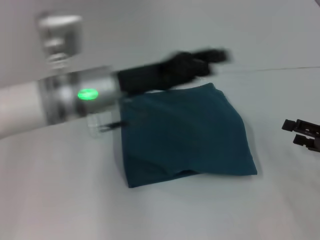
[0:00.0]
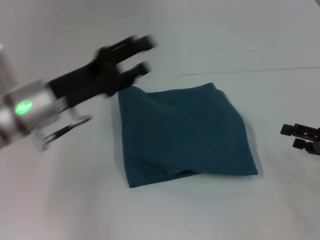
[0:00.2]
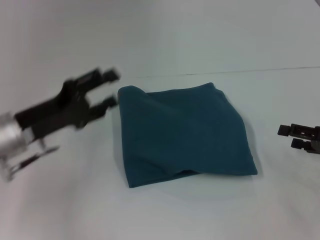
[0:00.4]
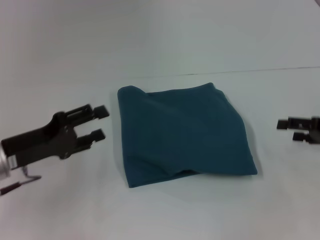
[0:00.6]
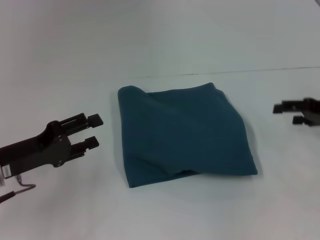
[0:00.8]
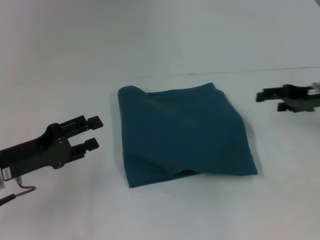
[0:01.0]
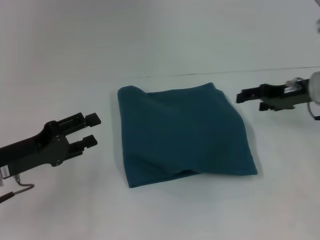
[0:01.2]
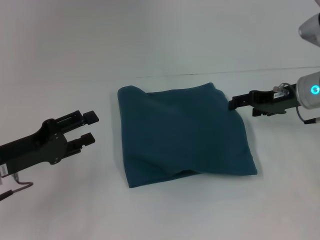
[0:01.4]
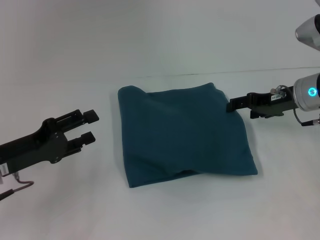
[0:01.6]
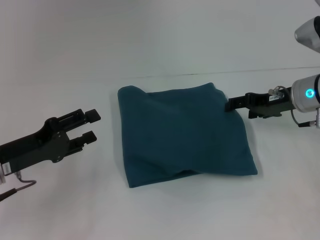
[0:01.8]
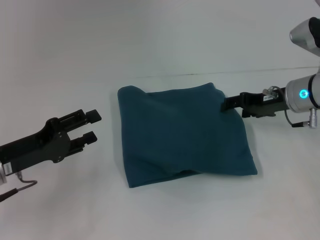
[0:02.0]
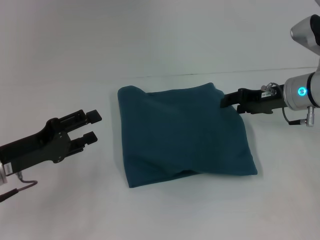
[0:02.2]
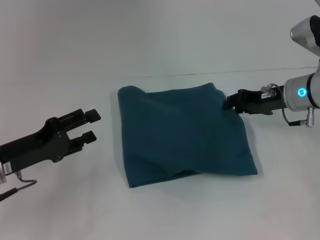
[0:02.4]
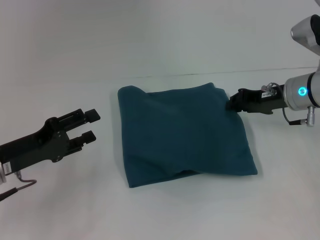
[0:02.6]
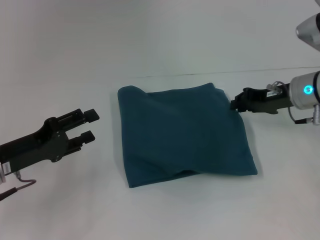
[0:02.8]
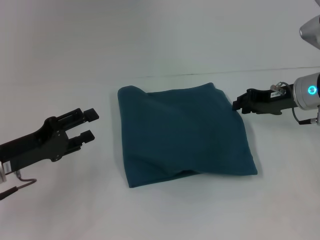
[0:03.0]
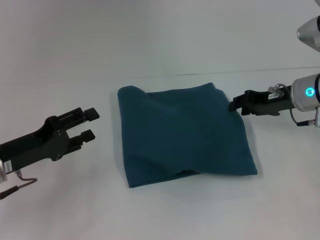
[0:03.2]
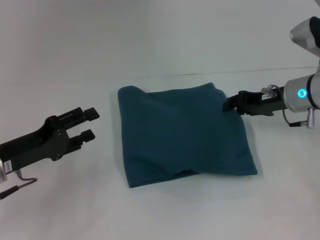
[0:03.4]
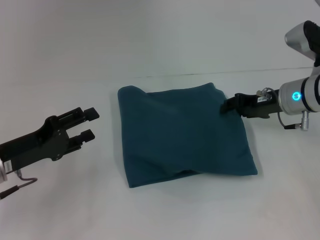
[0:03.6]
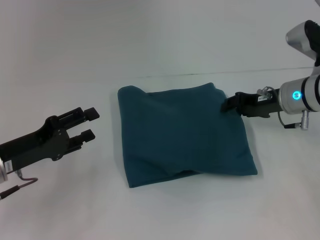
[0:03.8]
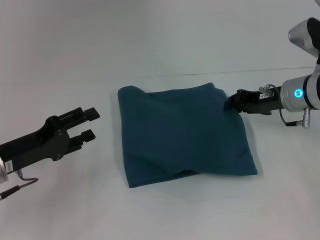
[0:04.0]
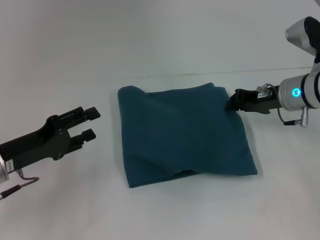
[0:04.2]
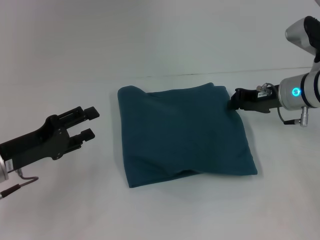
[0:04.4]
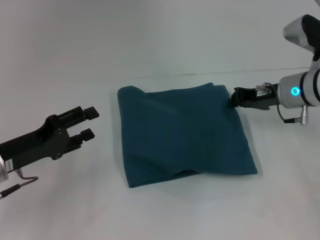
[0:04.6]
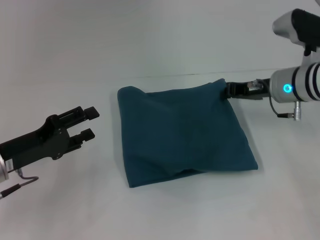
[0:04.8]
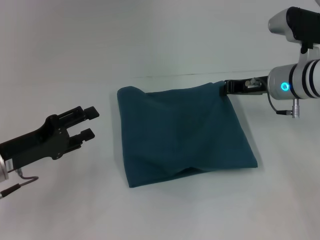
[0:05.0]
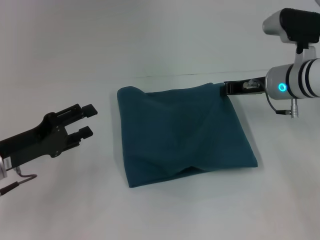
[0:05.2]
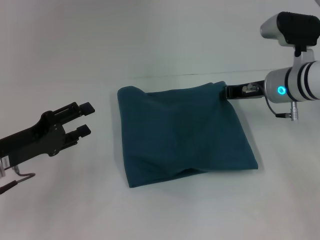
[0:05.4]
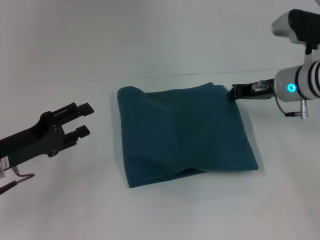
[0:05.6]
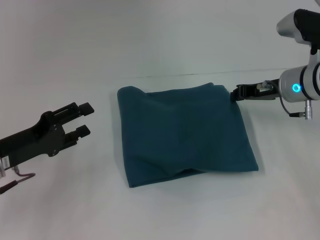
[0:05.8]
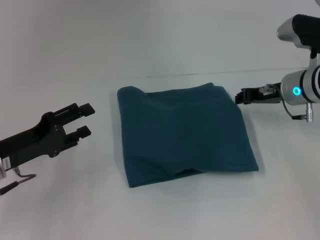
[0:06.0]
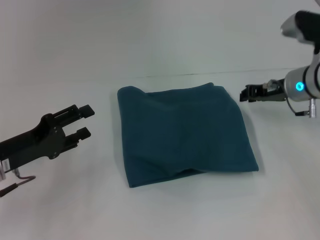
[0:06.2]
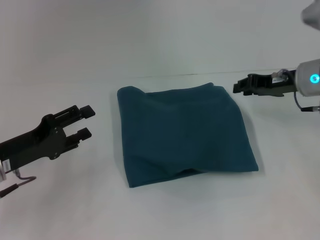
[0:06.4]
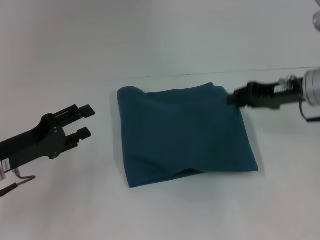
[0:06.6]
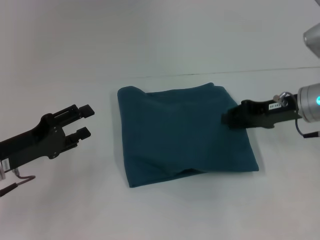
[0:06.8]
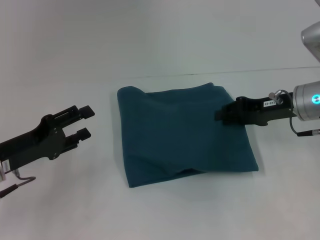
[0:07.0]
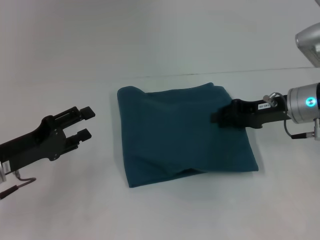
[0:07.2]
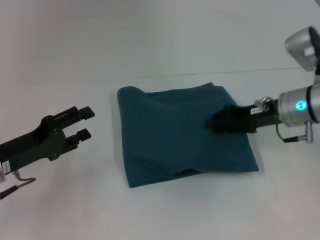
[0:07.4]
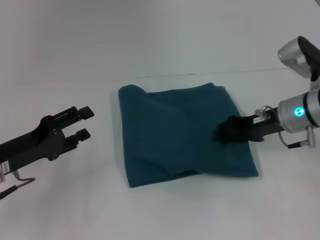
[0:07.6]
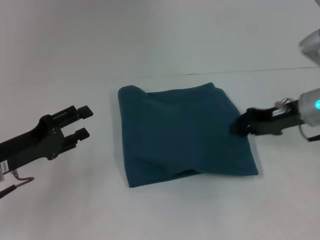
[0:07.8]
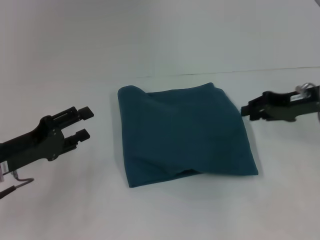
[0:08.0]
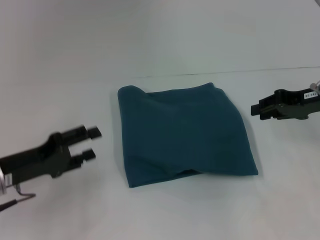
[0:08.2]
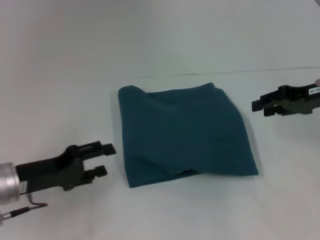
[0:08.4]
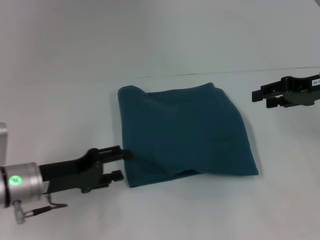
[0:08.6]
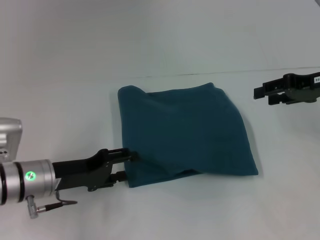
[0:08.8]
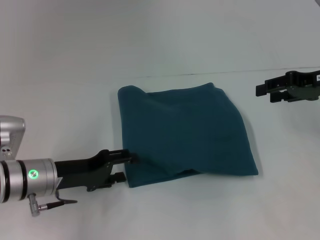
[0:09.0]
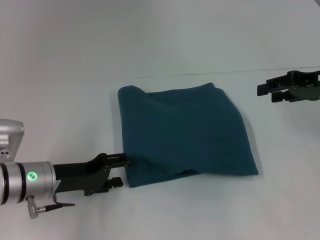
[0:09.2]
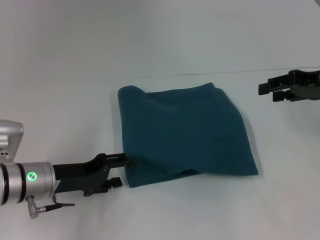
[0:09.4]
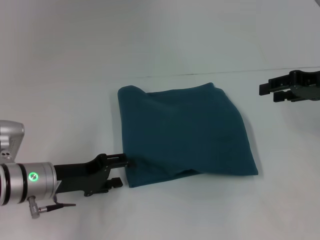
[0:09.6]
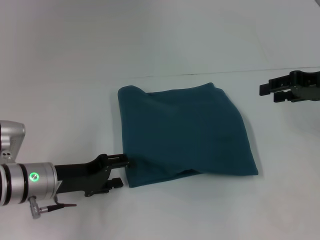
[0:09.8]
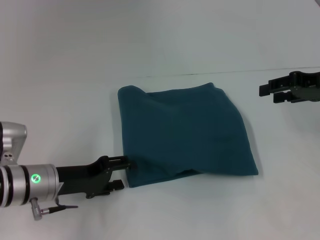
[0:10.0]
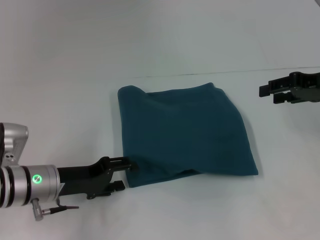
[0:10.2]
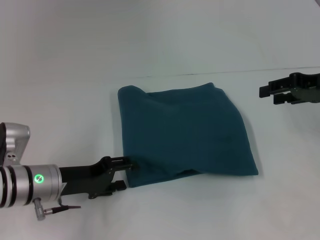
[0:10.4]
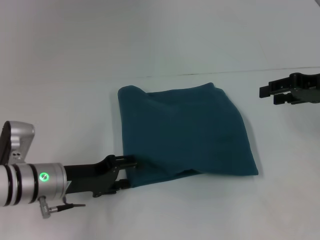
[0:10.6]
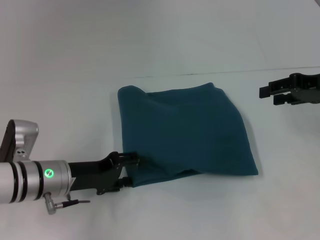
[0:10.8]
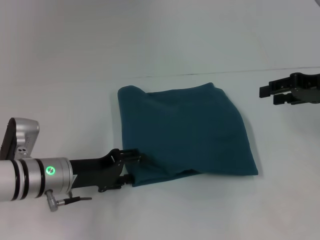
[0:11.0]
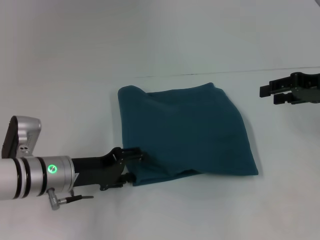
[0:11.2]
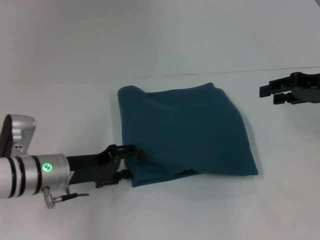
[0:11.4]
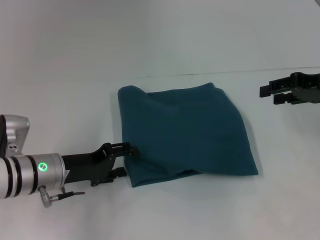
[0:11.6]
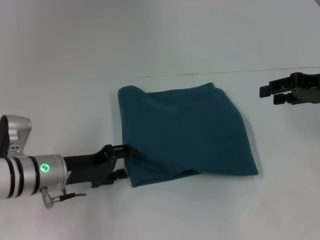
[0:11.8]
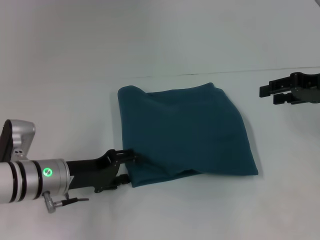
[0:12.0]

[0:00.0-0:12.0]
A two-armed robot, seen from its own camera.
0:00.0 to 0:01.6: The left gripper goes some 20 cm to the left and downward, and opens up; the right gripper is displaced forward, to the left and upward by about 15 cm.
0:01.6 to 0:03.0: The right gripper closes up.
0:03.0 to 0:04.4: The grippers make only small movements.
0:04.4 to 0:06.0: The grippers make only small movements.
0:07.6 to 0:09.0: The right gripper moves to the right and upward, some 10 cm, while the left gripper goes about 5 cm to the right.
0:09.0 to 0:10.4: Neither gripper changes place.
0:10.4 to 0:12.0: There are only small adjustments of the grippers.

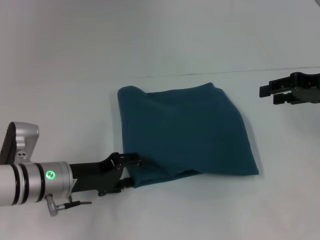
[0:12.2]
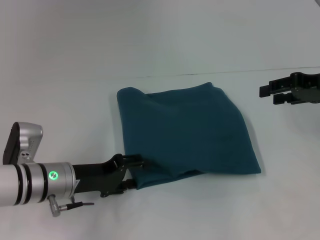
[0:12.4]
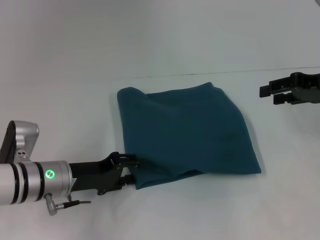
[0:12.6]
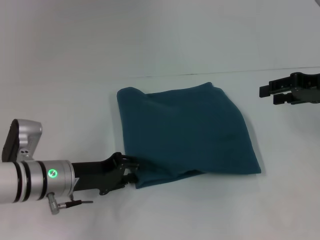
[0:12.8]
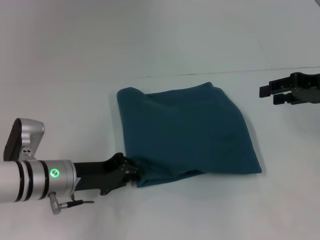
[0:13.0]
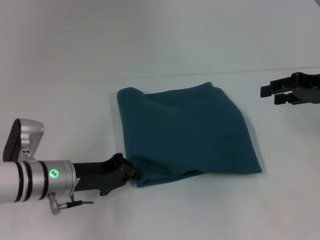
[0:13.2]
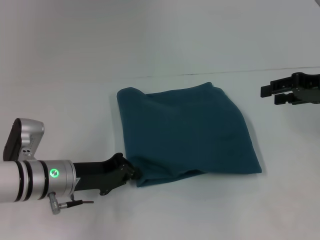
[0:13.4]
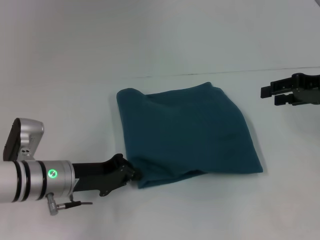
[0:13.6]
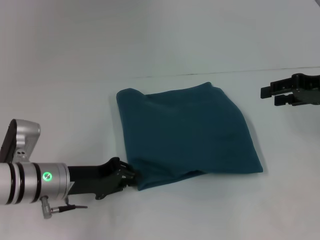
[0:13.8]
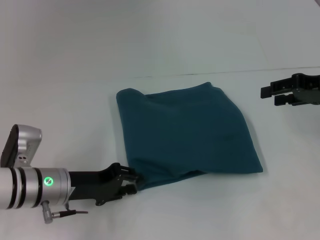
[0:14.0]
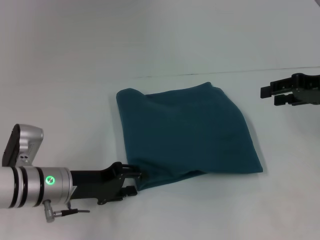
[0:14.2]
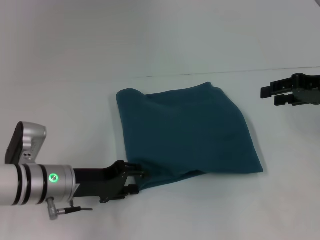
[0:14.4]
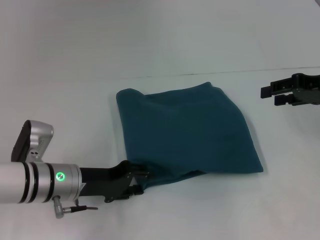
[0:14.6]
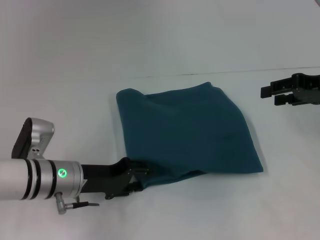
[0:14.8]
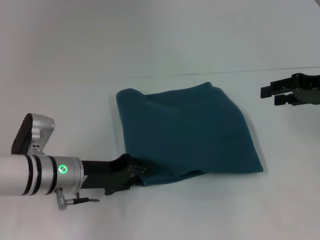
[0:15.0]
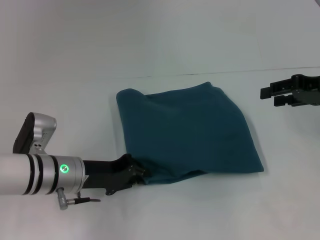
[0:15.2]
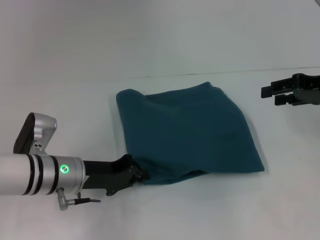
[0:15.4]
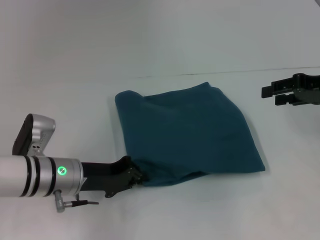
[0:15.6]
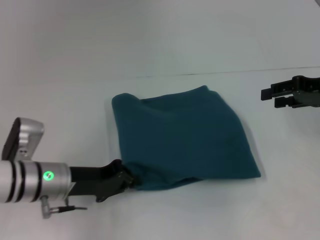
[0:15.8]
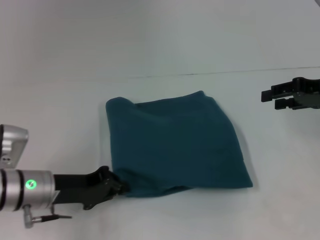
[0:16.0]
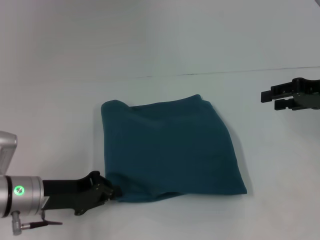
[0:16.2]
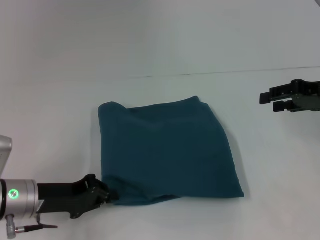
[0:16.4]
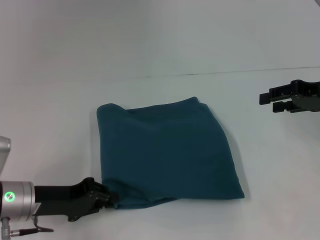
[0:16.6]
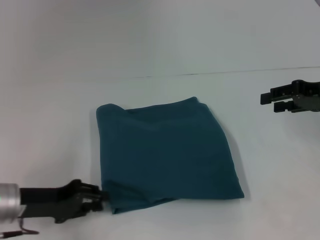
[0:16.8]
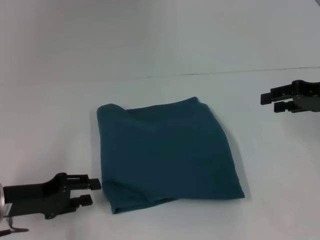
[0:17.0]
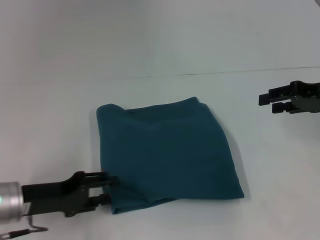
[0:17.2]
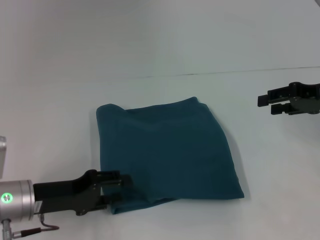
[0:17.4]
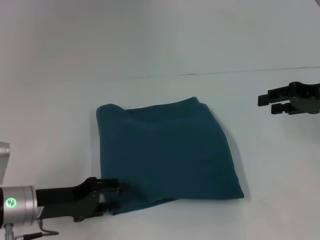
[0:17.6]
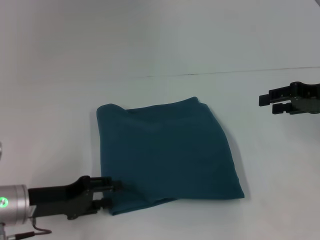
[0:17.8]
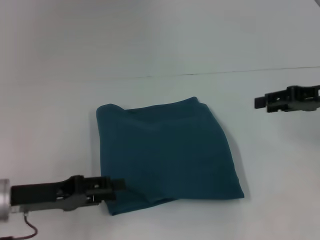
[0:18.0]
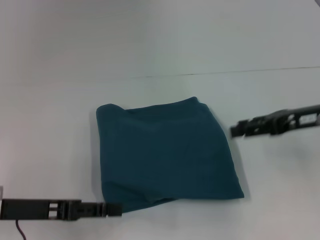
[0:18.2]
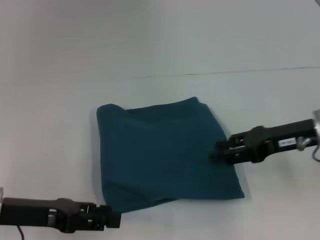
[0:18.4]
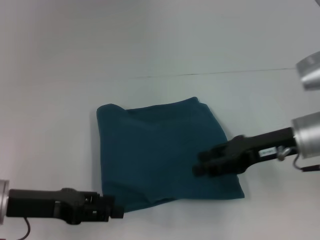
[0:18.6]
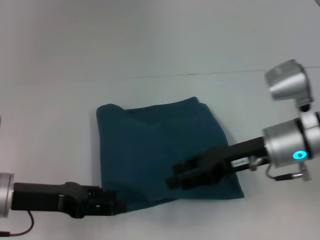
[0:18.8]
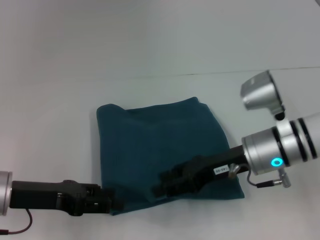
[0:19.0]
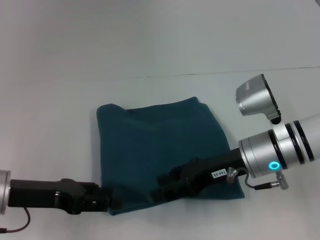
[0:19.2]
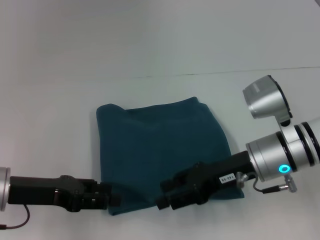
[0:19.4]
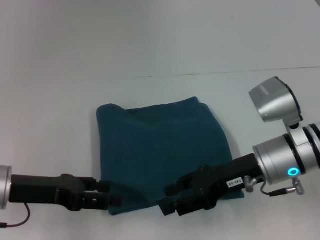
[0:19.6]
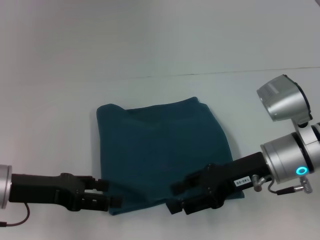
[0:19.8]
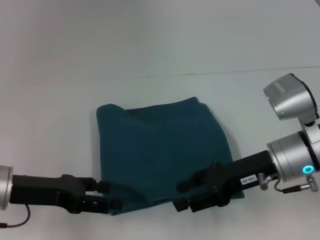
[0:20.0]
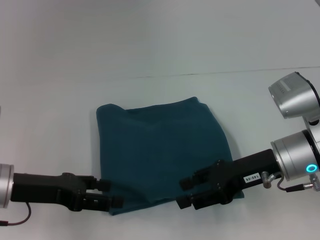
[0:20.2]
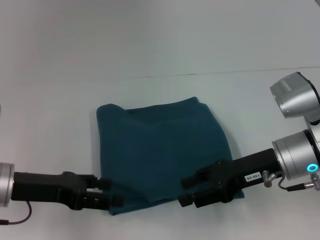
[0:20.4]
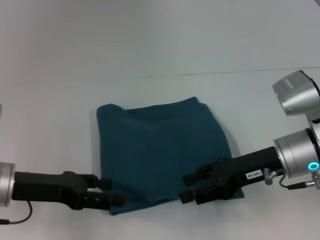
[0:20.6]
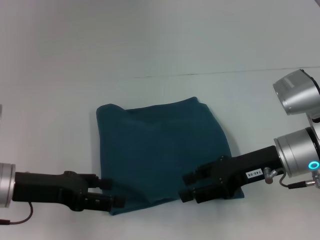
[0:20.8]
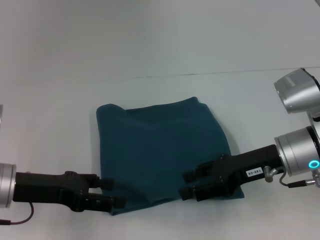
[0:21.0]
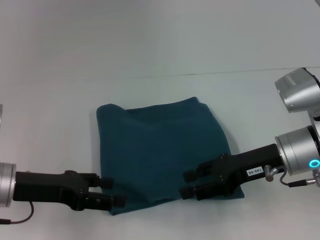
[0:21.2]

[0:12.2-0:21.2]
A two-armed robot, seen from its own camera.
0:12.2 to 0:13.8: The left gripper closes up.
0:13.8 to 0:15.2: The left gripper opens up.
0:15.2 to 0:16.6: The left gripper shifts some 5 cm to the left, and closes.
0:16.6 to 0:18.2: The left gripper changes place by approximately 5 cm, and opens up.
0:18.2 to 0:19.8: The right gripper heads to the left, covering approximately 10 cm.
0:19.8 to 0:21.2: The grippers move only a little.

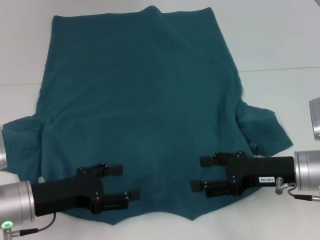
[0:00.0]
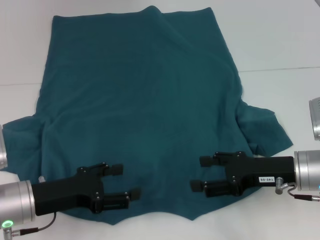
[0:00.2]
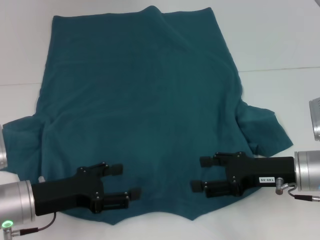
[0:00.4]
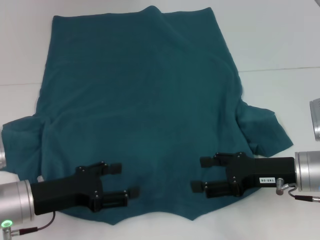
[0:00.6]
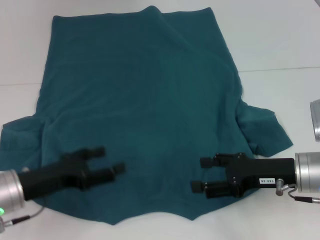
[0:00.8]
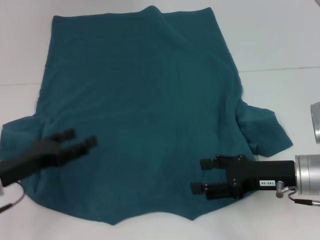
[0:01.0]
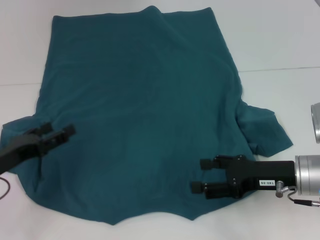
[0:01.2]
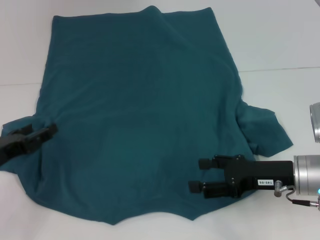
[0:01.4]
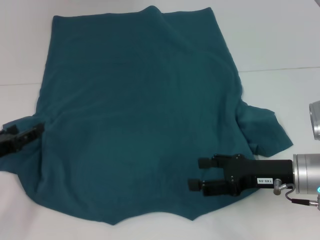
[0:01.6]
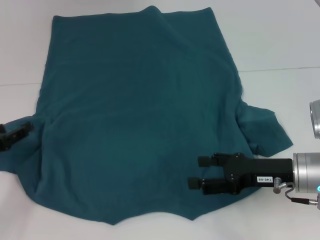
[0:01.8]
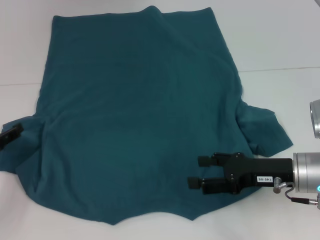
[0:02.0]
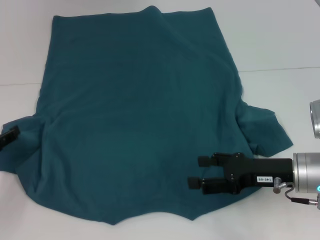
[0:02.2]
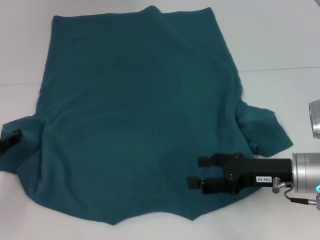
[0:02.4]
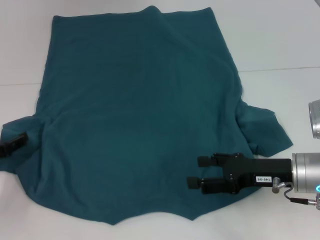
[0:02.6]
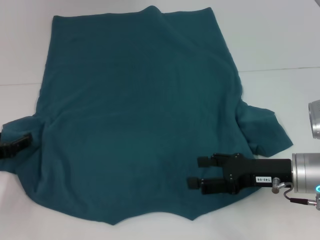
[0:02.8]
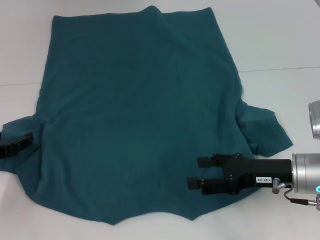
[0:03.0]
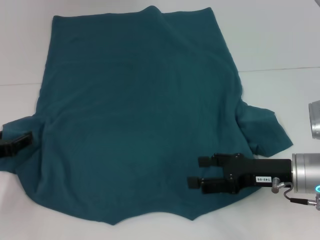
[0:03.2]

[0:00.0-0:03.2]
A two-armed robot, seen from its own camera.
0:00.0 to 0:01.6: The left gripper moves to the left, approximately 10 cm.
0:01.6 to 0:03.2: The grippers stay close to where they were, moving slightly.
